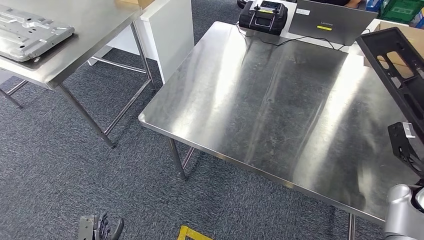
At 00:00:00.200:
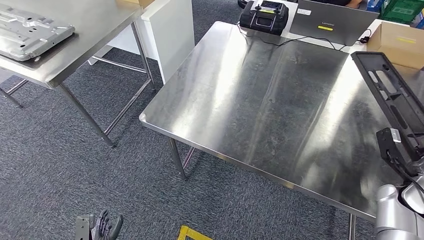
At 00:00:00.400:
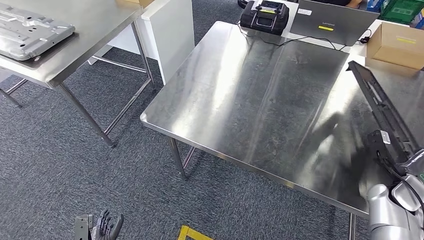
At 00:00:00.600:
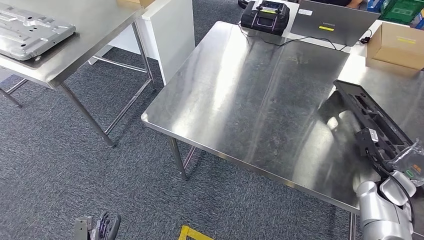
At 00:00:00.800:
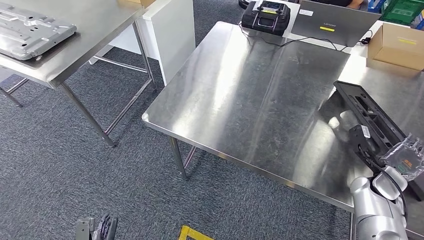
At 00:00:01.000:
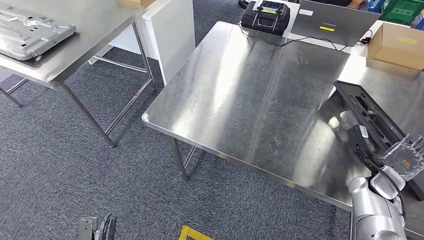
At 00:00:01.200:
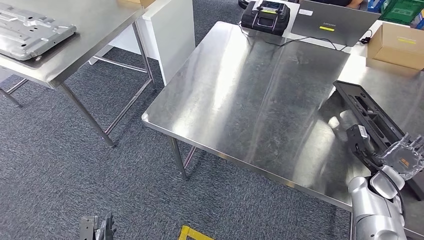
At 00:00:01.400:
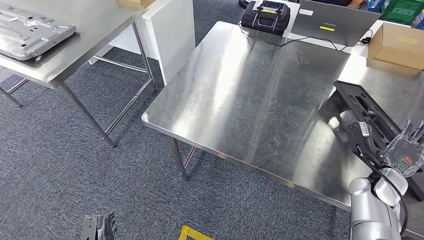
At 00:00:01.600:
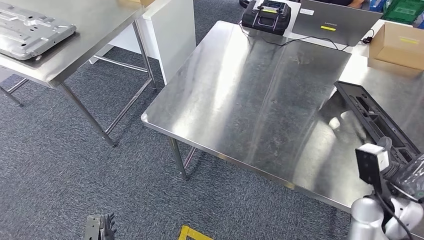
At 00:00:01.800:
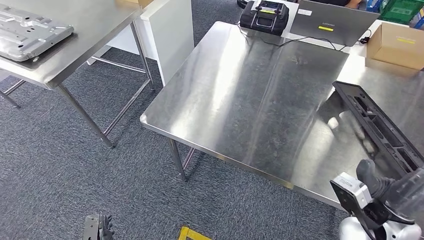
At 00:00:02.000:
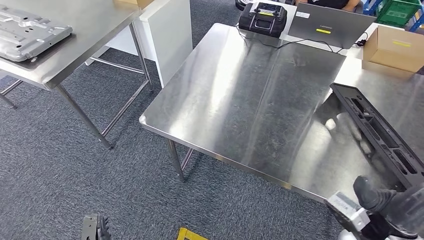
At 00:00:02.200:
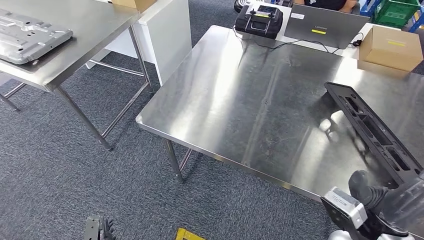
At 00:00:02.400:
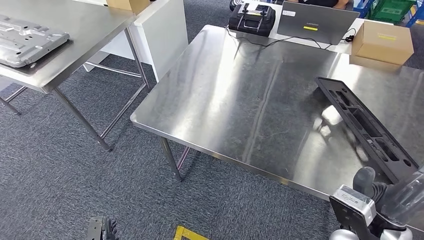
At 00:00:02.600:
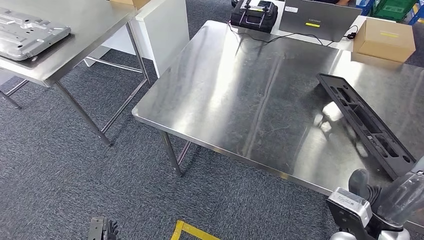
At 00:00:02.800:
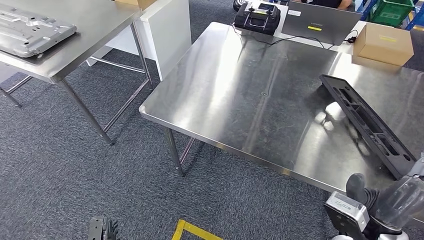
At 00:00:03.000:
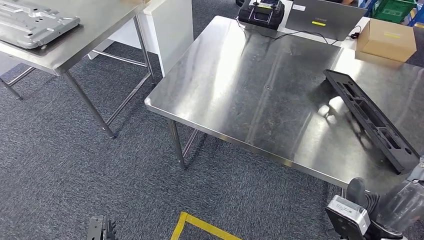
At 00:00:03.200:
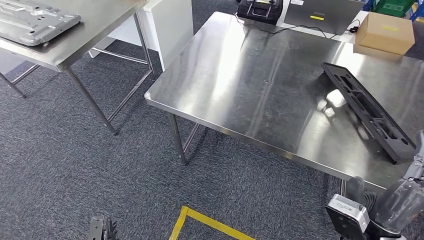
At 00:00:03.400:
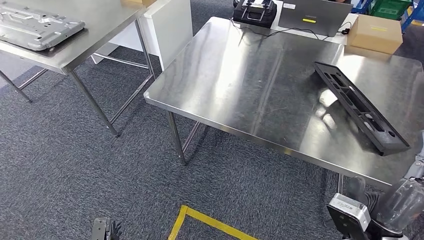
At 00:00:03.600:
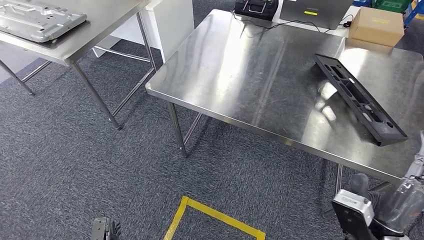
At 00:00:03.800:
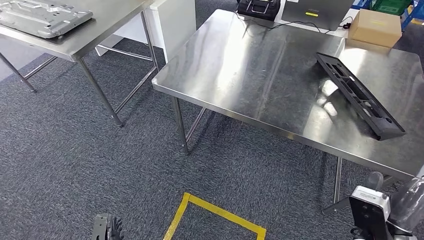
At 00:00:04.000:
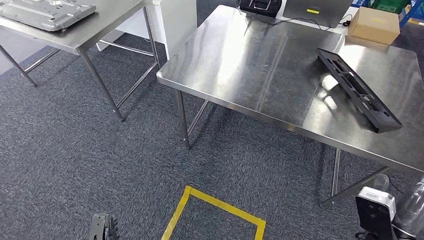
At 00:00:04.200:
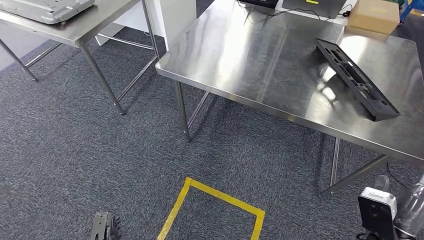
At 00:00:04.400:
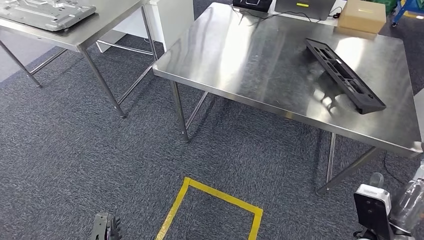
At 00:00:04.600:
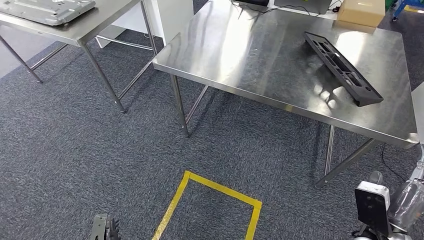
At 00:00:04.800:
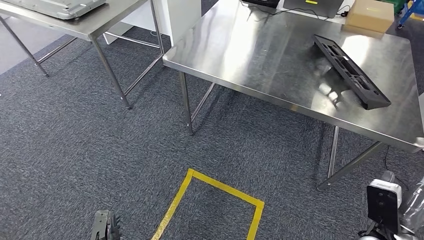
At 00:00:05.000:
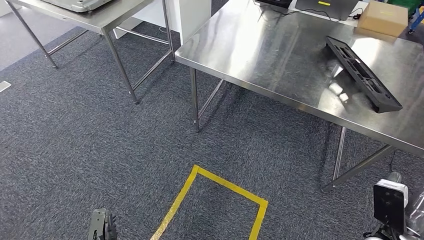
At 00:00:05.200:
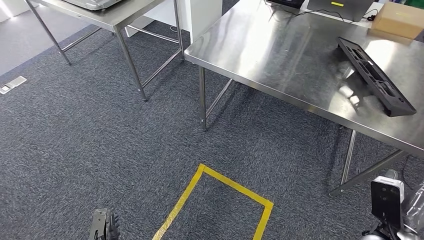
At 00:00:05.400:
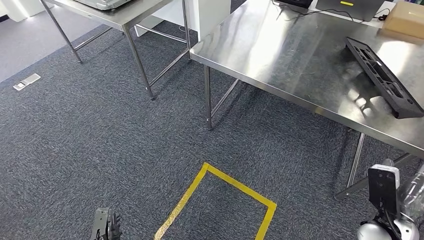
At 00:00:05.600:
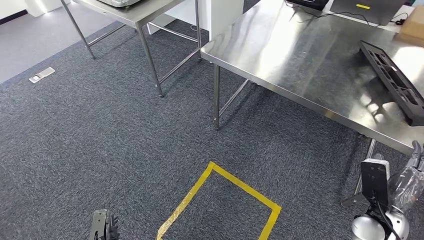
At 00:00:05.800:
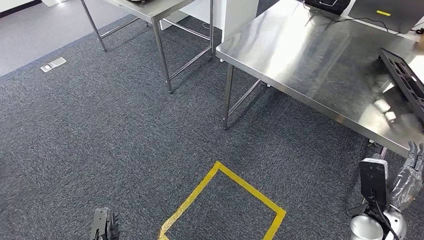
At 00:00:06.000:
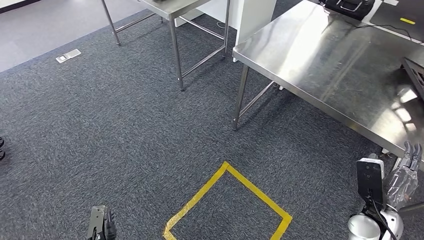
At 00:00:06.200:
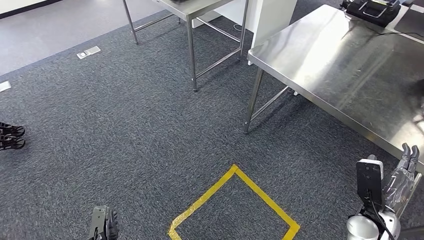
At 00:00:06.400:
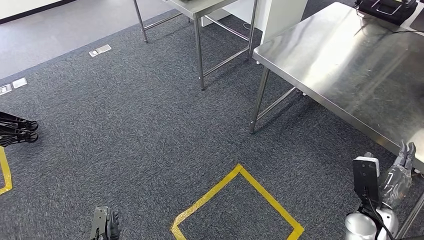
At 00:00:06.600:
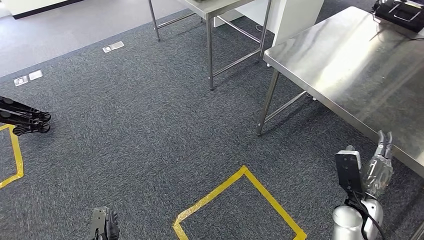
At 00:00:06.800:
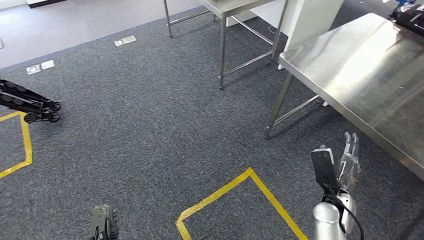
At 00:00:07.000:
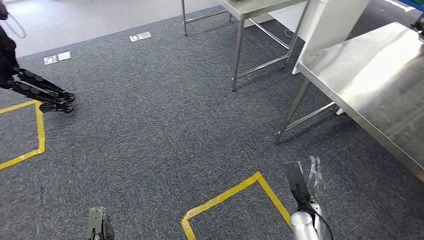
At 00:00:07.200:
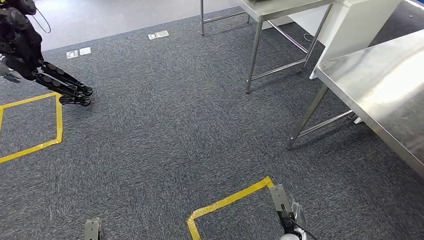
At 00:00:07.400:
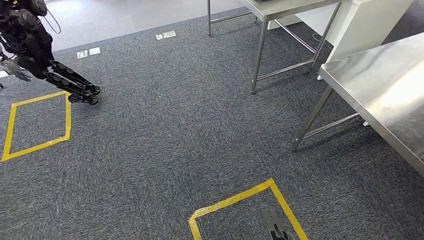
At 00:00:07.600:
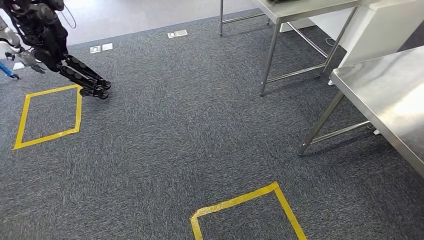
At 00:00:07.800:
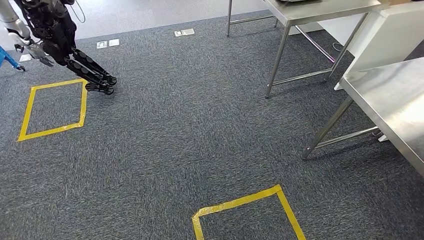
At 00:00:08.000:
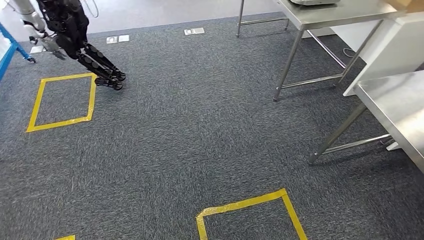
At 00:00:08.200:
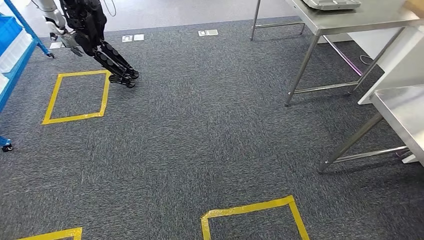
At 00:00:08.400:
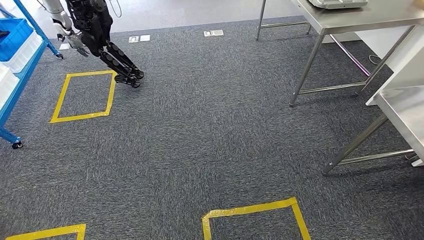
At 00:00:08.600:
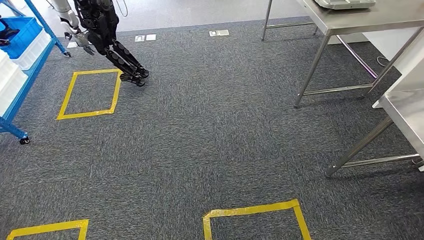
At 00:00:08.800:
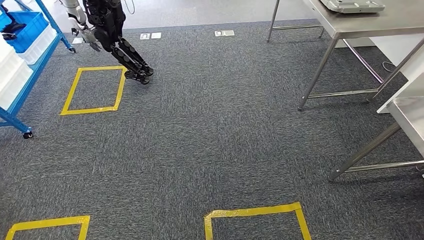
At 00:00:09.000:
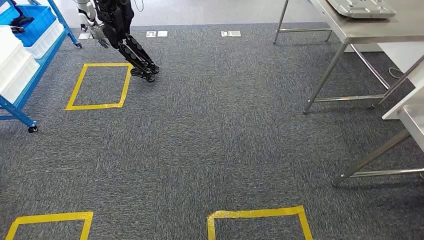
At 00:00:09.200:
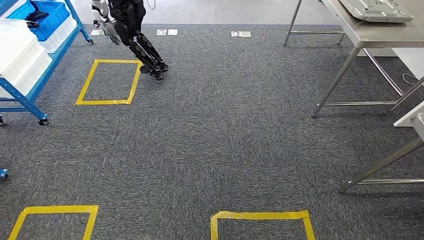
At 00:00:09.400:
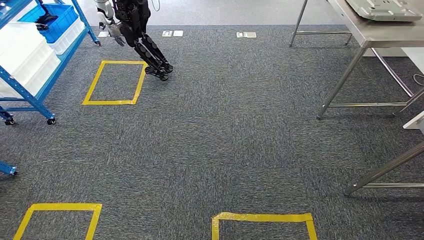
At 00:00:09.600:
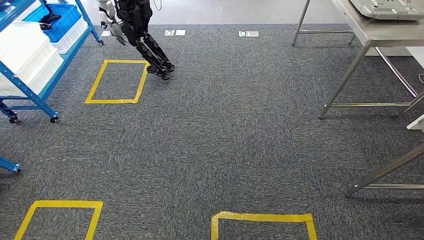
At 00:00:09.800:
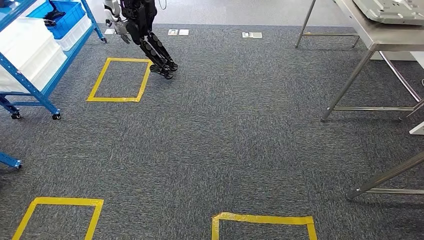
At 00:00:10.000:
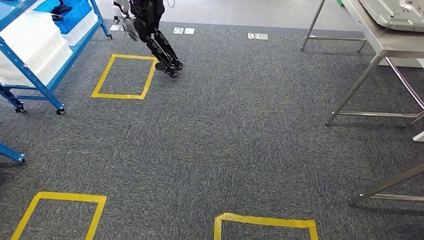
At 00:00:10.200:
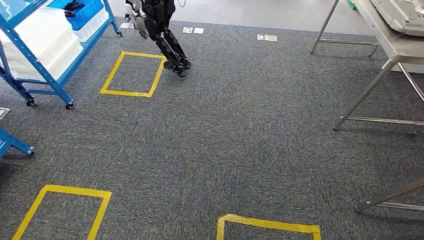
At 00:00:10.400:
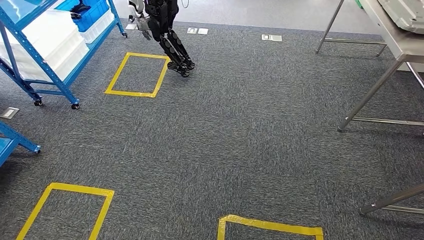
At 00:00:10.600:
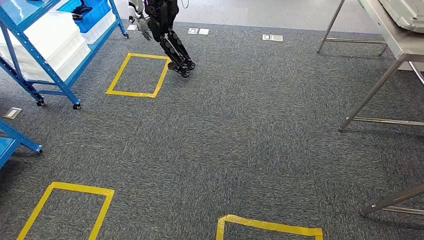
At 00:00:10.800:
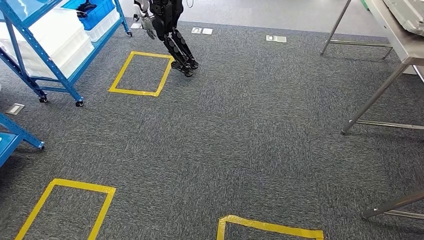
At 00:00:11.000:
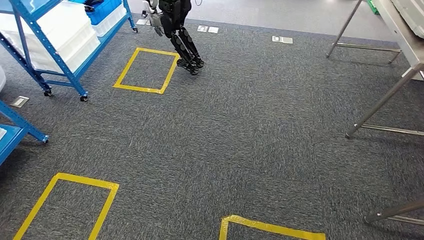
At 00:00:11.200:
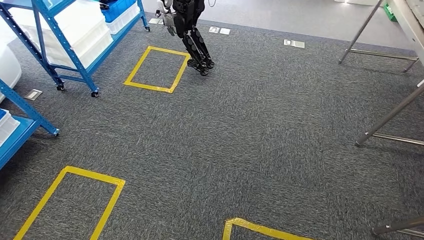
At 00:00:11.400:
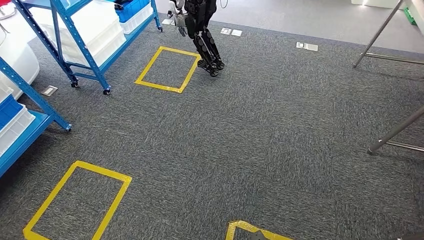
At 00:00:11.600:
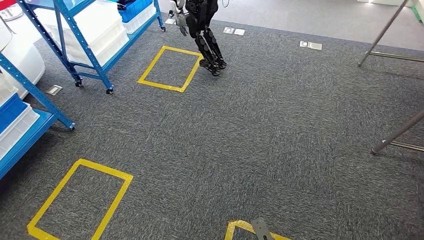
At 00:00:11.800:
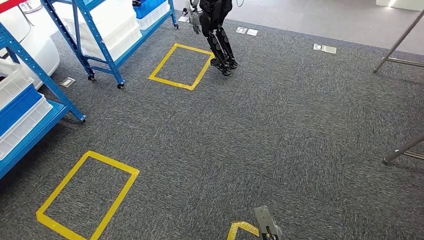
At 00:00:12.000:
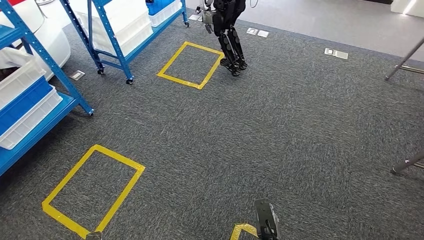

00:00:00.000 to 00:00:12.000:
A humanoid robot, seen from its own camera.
Step, 00:00:00.000 to 00:00:07.400: Insert the large material into the corresponding slot on the workbench.

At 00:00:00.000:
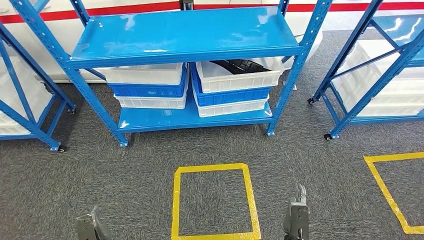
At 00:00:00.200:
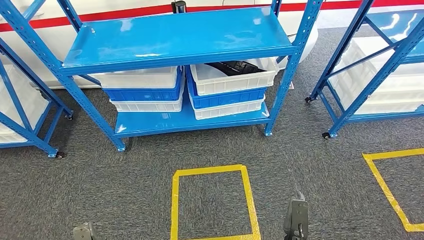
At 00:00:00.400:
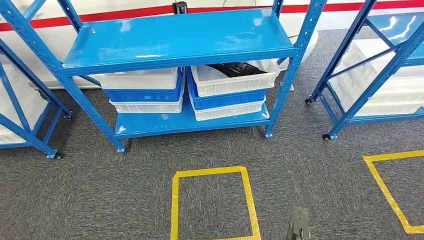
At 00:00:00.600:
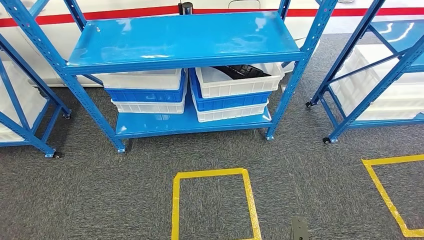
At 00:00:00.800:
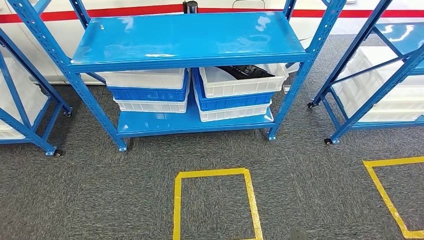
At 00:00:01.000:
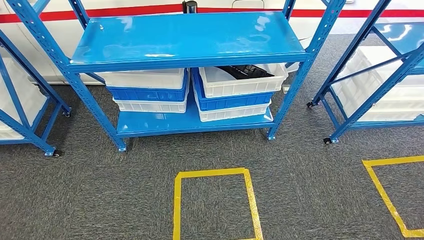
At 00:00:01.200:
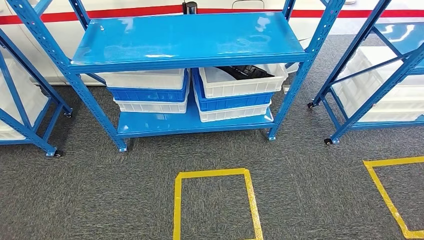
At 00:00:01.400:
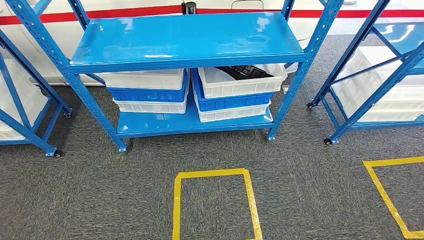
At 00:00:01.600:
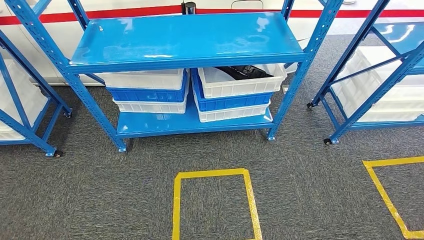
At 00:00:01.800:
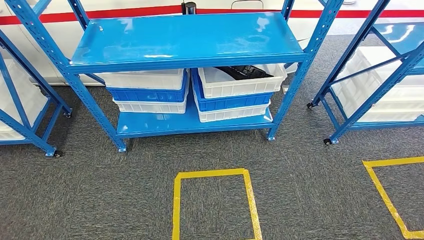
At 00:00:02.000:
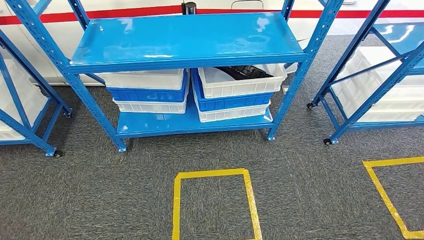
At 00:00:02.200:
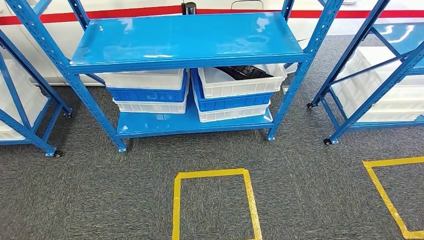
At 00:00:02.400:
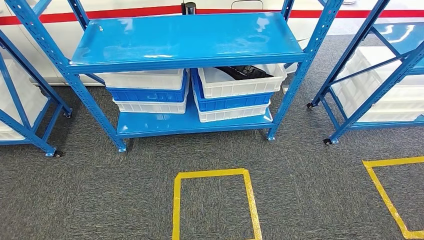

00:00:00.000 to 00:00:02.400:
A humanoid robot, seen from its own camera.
Step, 00:00:00.000 to 00:00:02.400: Move to the initial position of the shelf.
00:00:01.200 to 00:00:02.400: The left hand changes place by approximately 5 cm; the right hand travels backward by roughly 5 cm.
